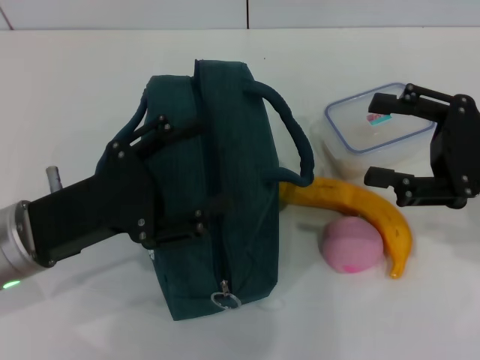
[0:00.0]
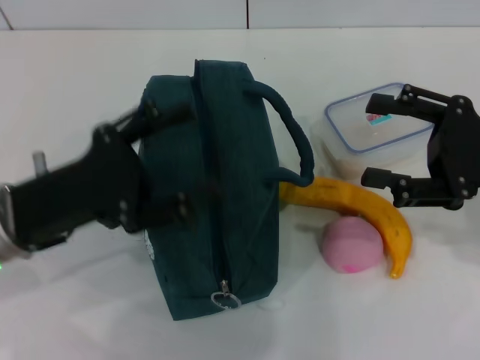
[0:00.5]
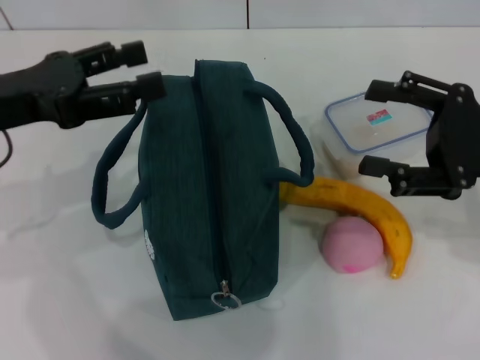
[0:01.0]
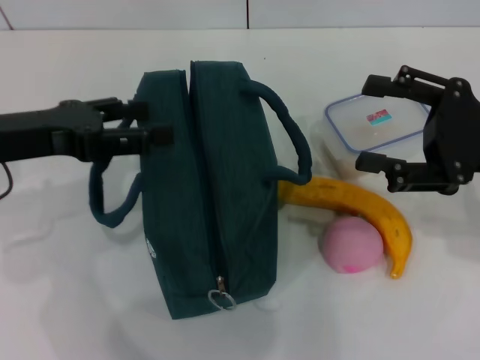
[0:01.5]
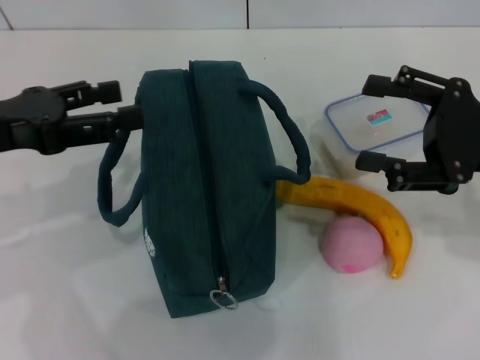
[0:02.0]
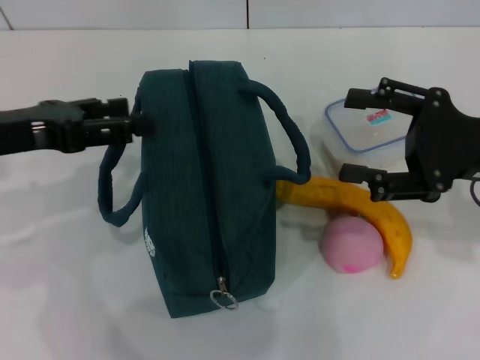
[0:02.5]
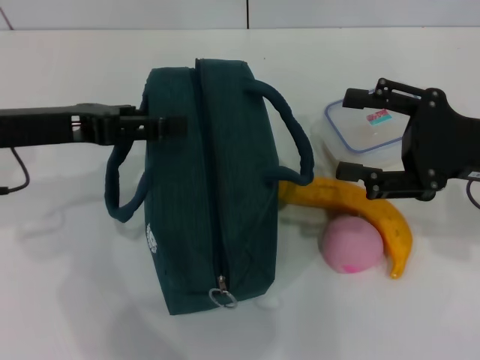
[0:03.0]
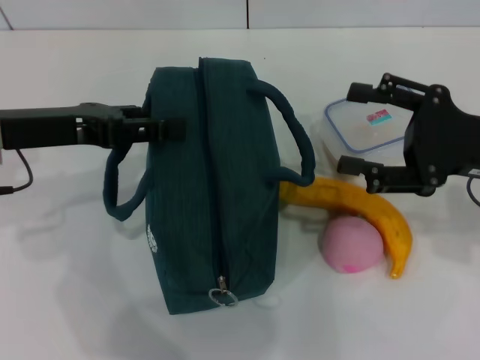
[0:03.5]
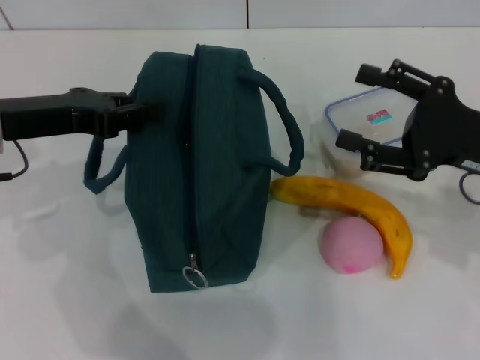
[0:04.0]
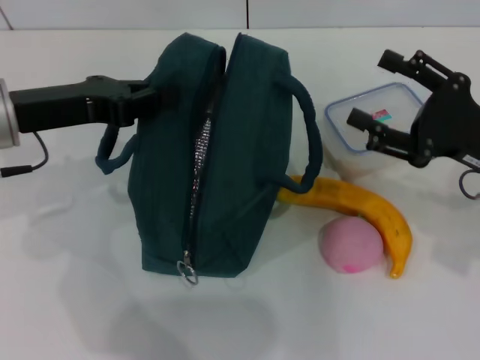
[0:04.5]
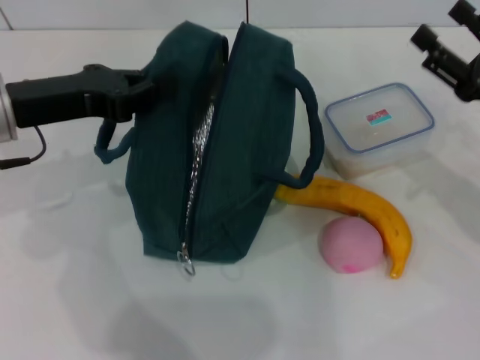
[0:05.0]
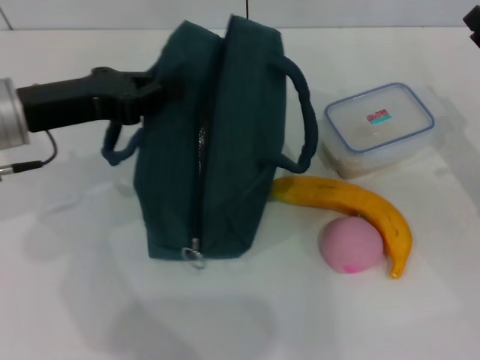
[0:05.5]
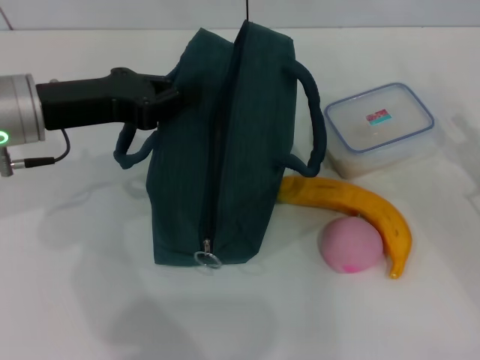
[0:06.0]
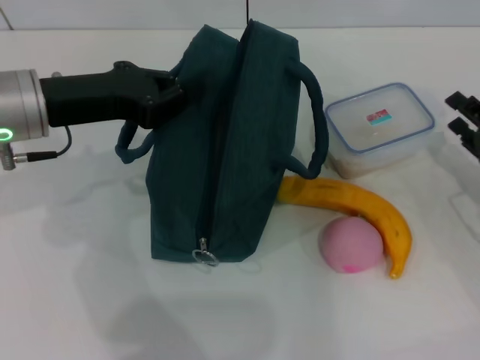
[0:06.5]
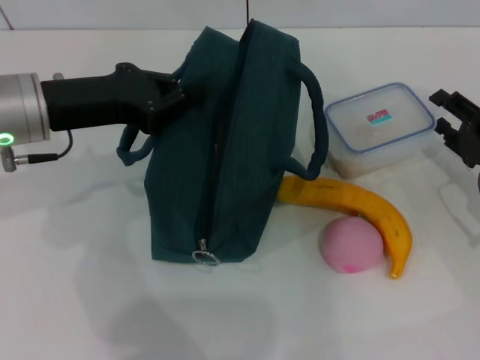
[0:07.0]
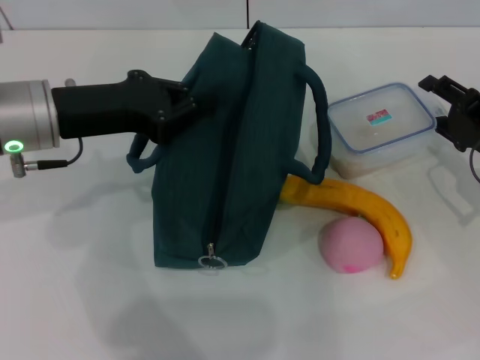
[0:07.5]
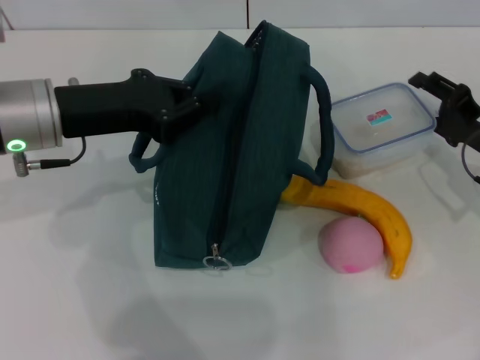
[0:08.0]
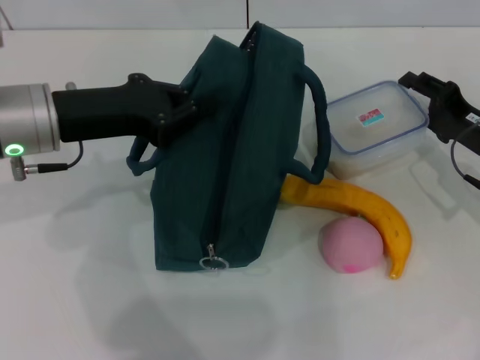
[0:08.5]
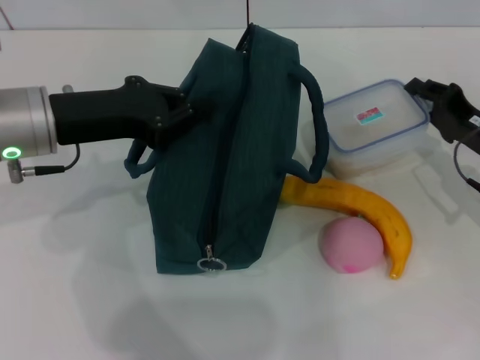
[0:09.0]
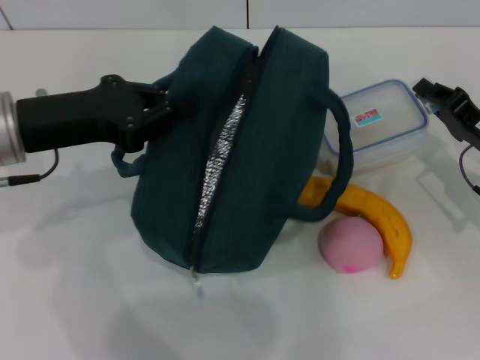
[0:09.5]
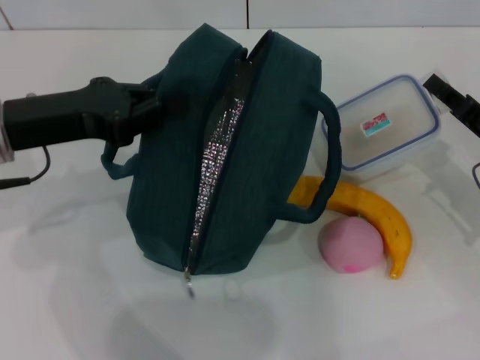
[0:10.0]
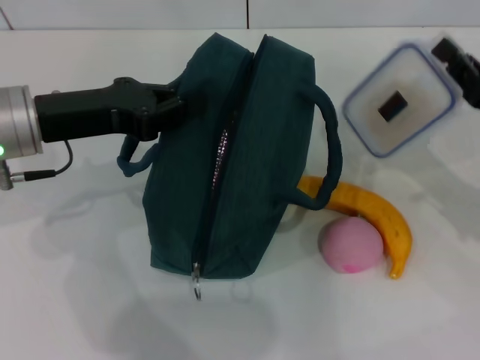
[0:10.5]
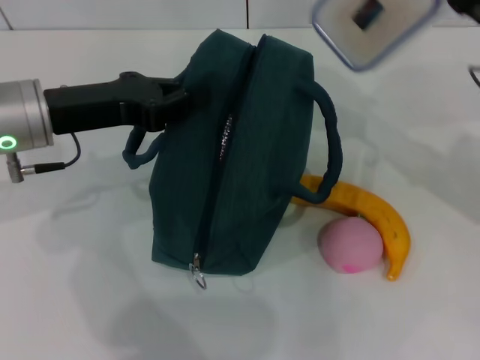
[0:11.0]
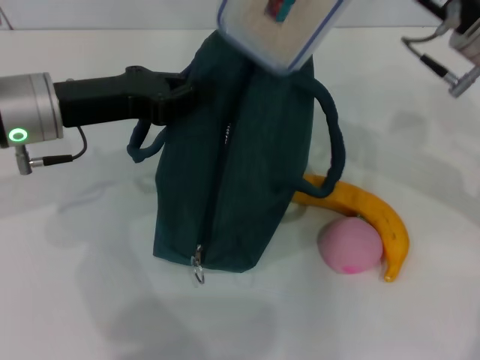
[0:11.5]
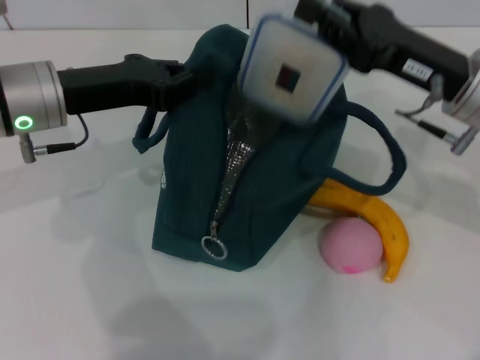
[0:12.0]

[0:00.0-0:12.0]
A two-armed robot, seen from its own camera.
Step, 0:00.0 to 0:06.0: Hold the lunch bag with your left hand.
Step, 0:06.5 to 0:09.0: Pick up the lunch box with your right hand.
0:00.0 to 0:02.0: The left gripper goes about 10 cm upward and to the left.
0:02.0 to 0:04.0: The left gripper moves some 5 cm, and closes.
0:04.0 to 0:06.0: The left gripper closes up, while the right gripper goes roughly 10 cm downward and to the right.
0:06.0 to 0:08.0: The right gripper heads forward, covering approximately 5 cm.
0:08.0 to 0:10.0: The right gripper closes its fingers.
0:10.0 to 0:12.0: The right gripper travels upward and to the left by some 15 cm. The left gripper ends up some 5 cm from where it was.

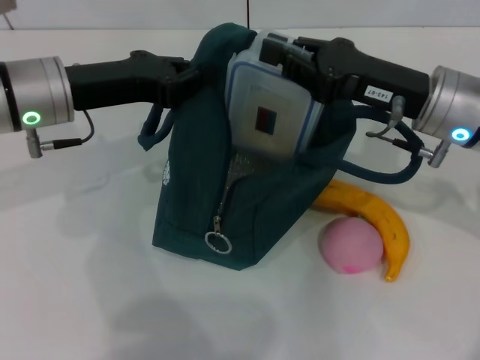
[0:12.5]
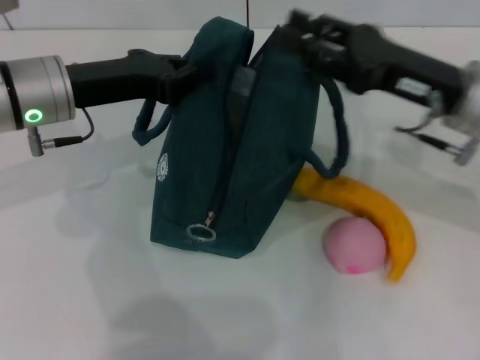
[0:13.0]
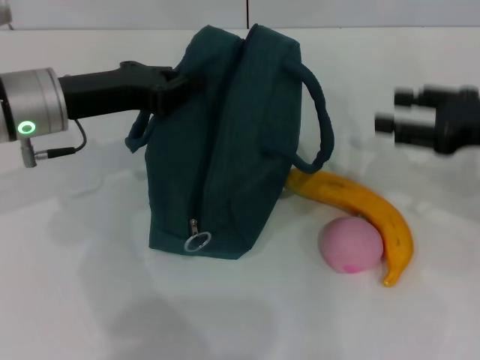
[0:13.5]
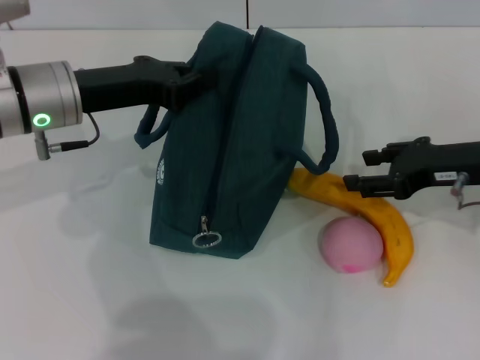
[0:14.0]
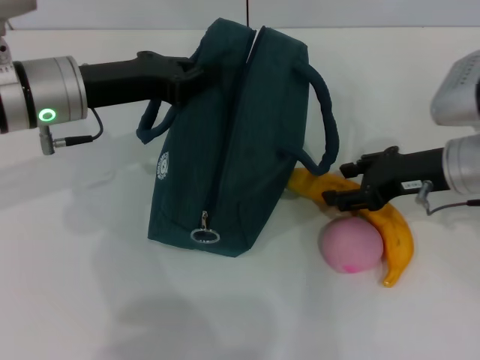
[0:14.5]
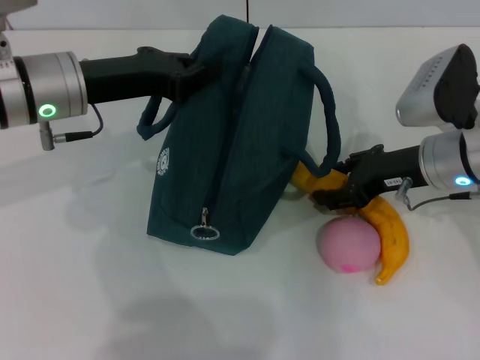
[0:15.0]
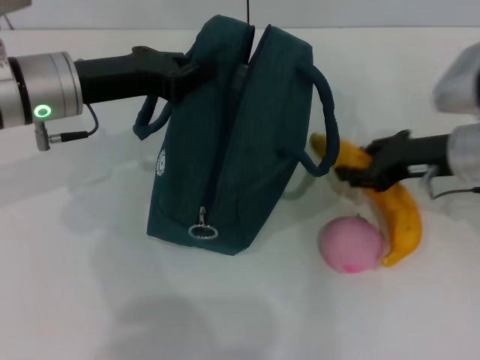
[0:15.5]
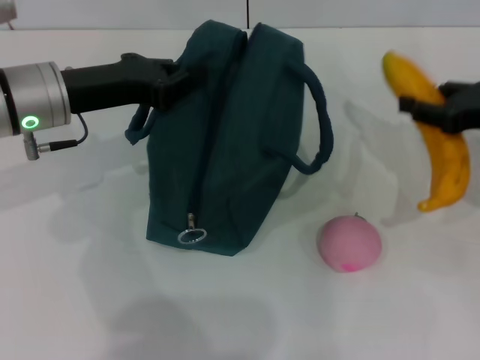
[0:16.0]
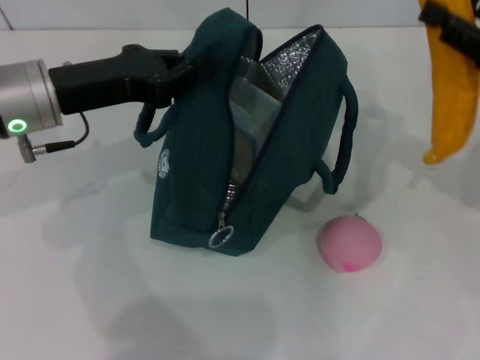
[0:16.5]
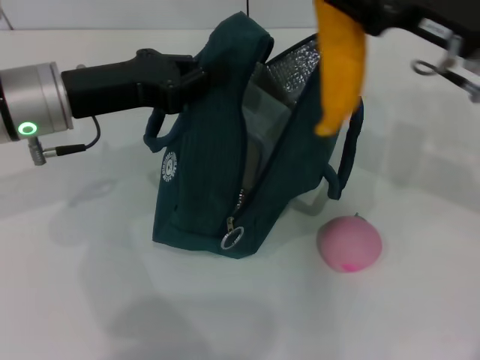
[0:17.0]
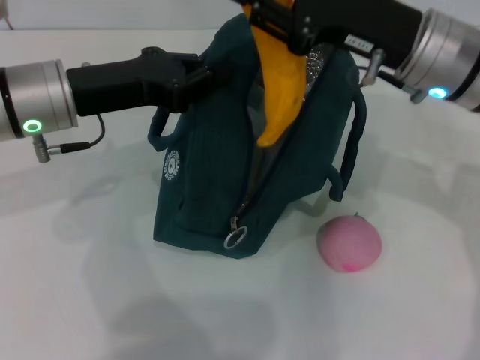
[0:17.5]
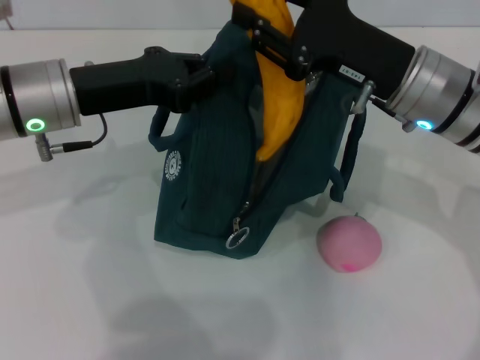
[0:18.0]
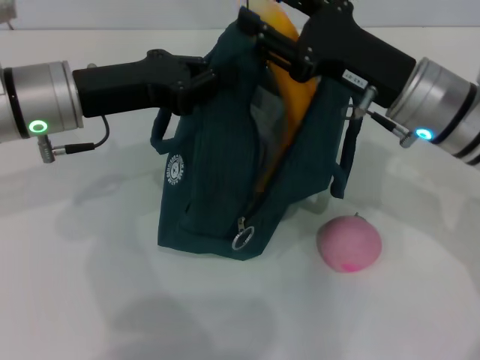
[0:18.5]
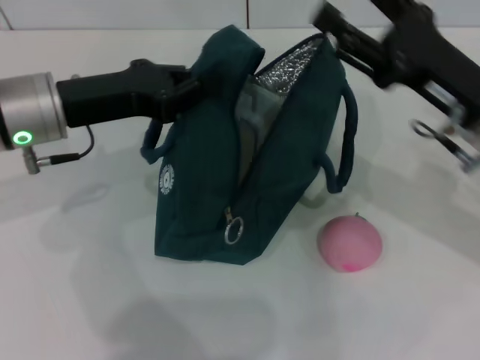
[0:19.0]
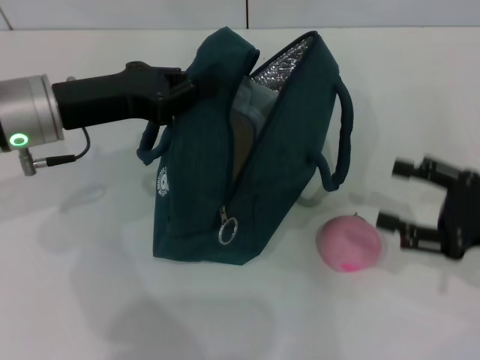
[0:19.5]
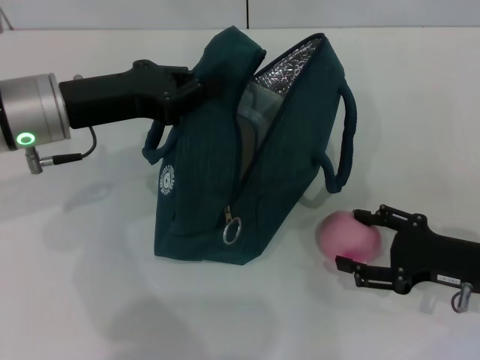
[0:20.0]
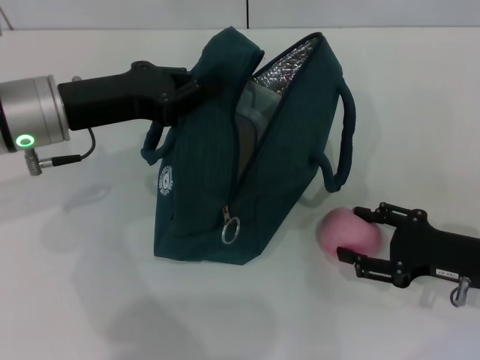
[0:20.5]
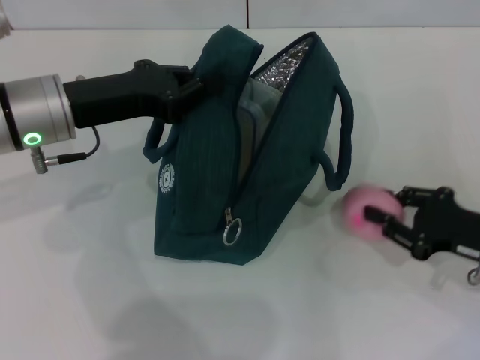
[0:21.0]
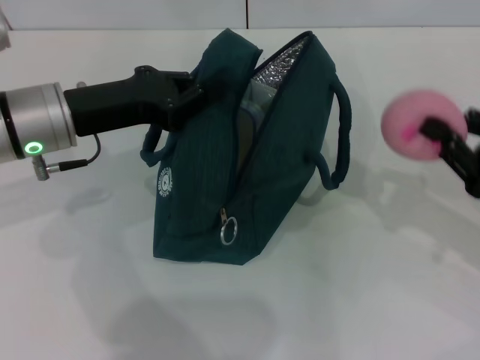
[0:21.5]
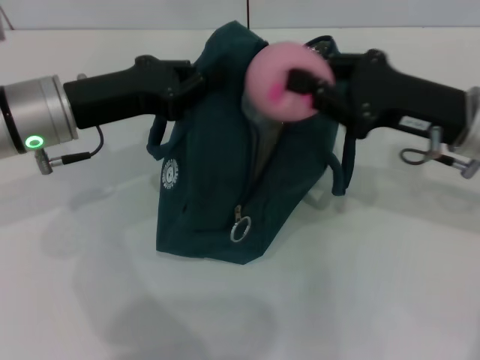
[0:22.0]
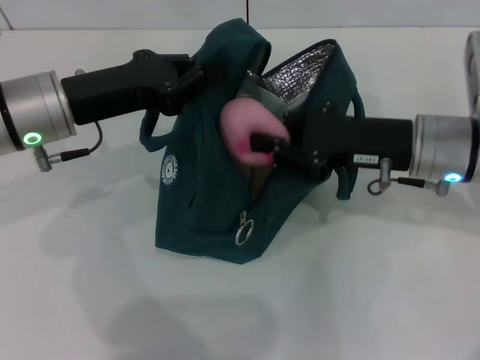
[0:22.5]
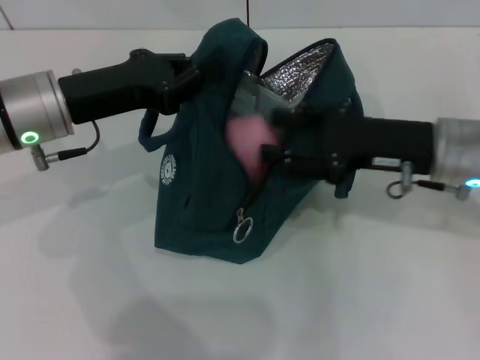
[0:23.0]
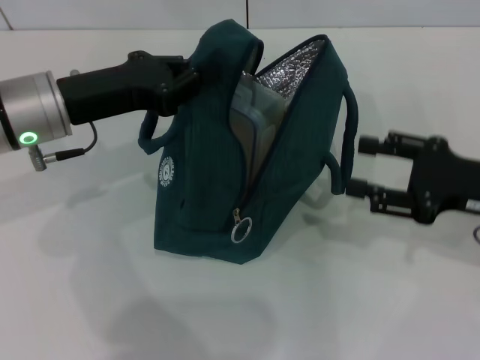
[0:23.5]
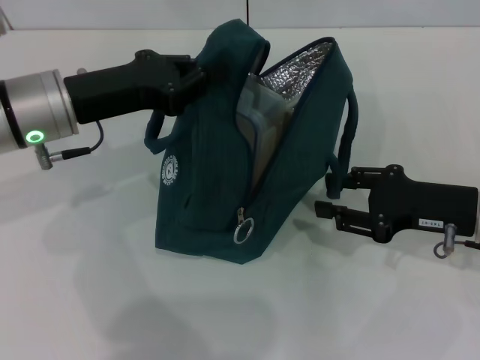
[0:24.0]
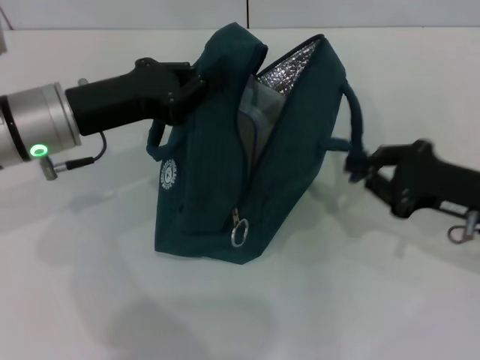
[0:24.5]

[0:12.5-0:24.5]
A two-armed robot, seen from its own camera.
Step, 0:13.5 to 0:15.0: Take the banana with your right hand.
Step, 0:15.5 to 0:18.5: Put the banana into the lunch bag with your right hand.
Step, 0:19.0 to 0:20.5: Grab the peach with your right hand.
0:12.5 to 0:14.5: The right gripper reaches some 10 cm to the right, then returns, and opens.
0:14.5 to 0:16.5: The right gripper goes some 10 cm to the right and upward.
0:16.5 to 0:18.5: The right gripper is displaced to the left by about 15 cm.
0:18.5 to 0:20.5: The right gripper goes some 20 cm to the right, downward and backward, and opens its fingers.
0:20.5 to 0:22.5: The right gripper travels to the left, upward and forward by roughly 15 cm, and closes.
0:22.5 to 0:24.5: The right gripper shifts some 10 cm to the right and backward, and opens and closes again.

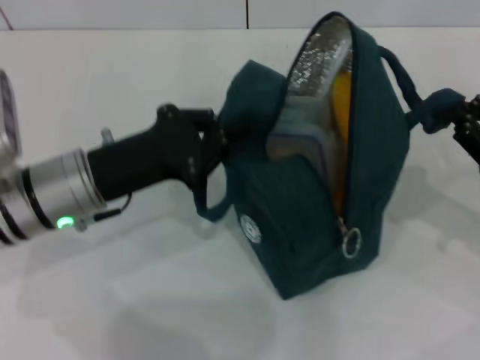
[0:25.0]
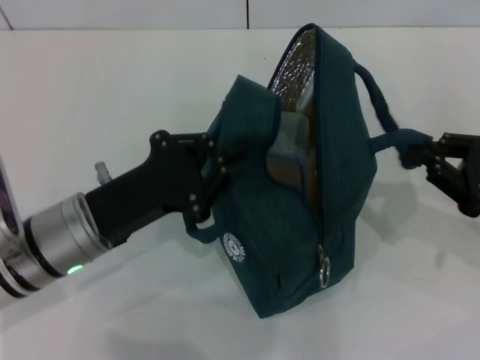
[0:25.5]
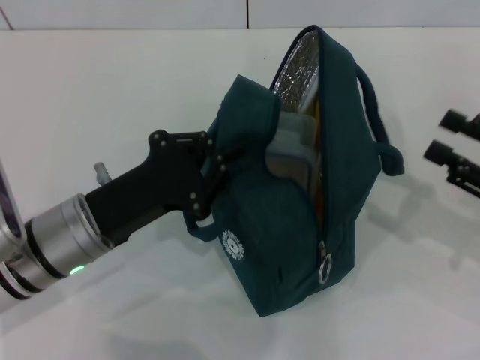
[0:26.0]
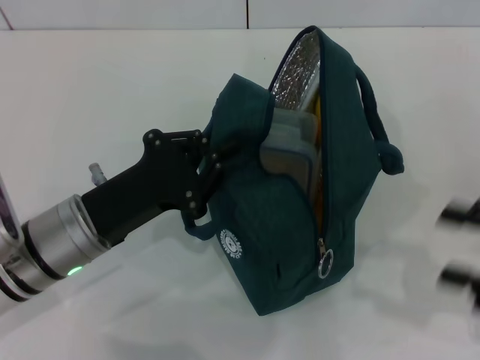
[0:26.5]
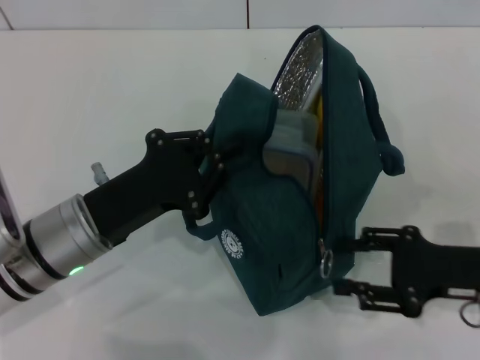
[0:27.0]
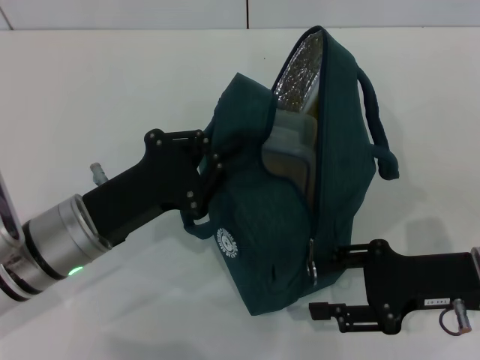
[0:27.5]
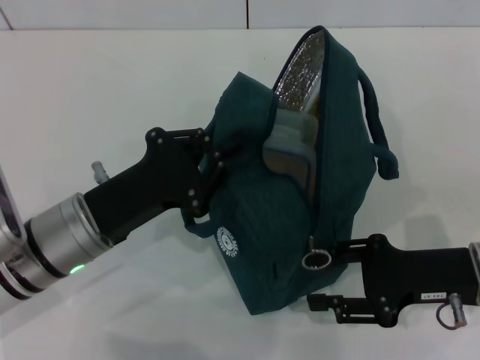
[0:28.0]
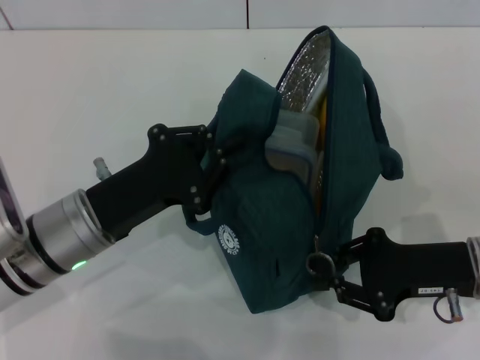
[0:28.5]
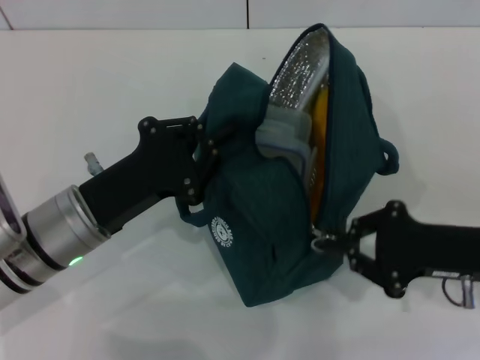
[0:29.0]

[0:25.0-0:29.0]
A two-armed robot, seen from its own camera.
0:25.0 to 0:27.0: The right gripper changes place by about 5 cm, and opens up. Meanwhile the left gripper changes place by about 5 cm.
0:27.0 to 0:29.0: The right gripper closes up.
